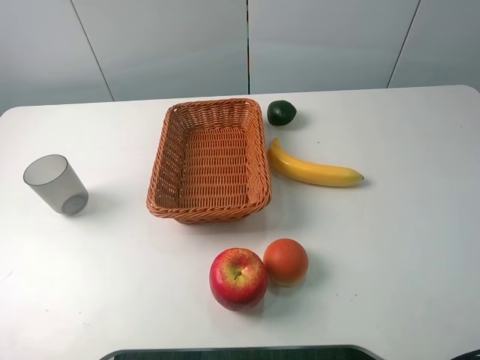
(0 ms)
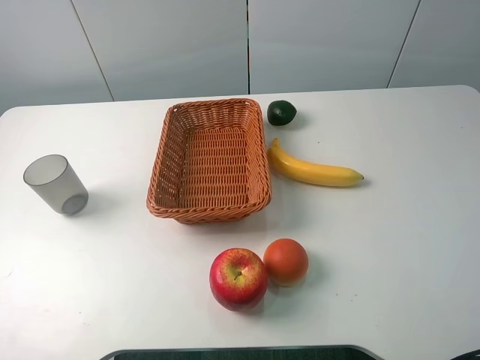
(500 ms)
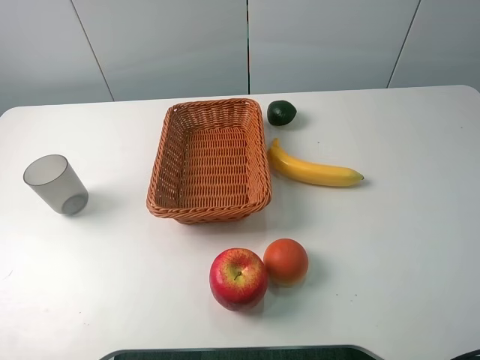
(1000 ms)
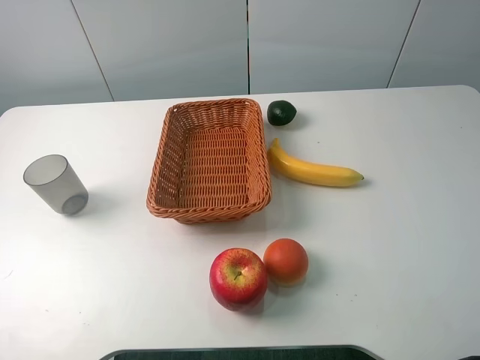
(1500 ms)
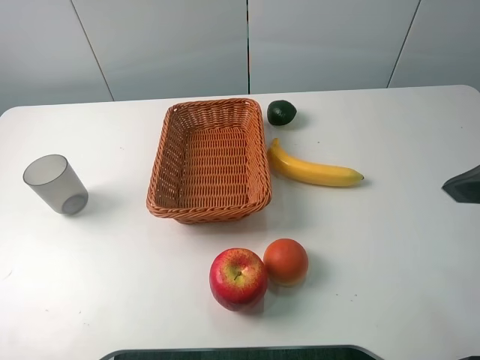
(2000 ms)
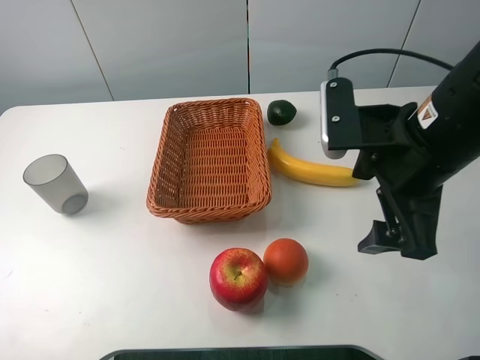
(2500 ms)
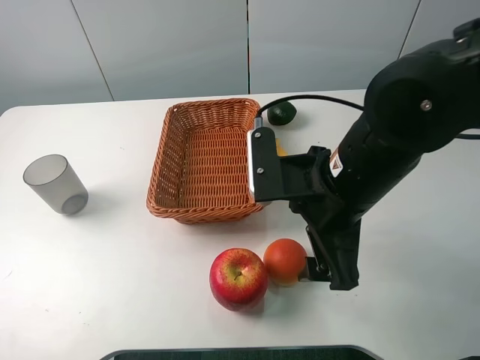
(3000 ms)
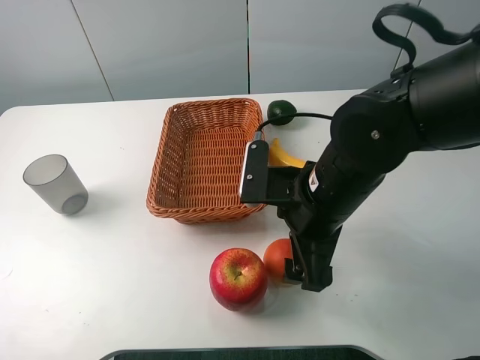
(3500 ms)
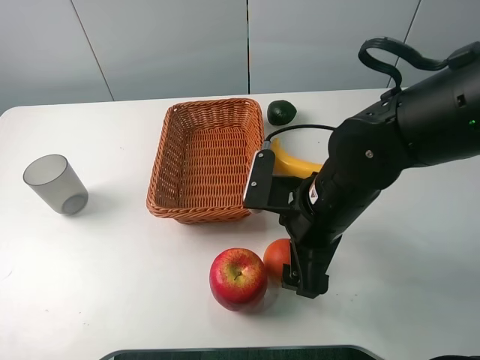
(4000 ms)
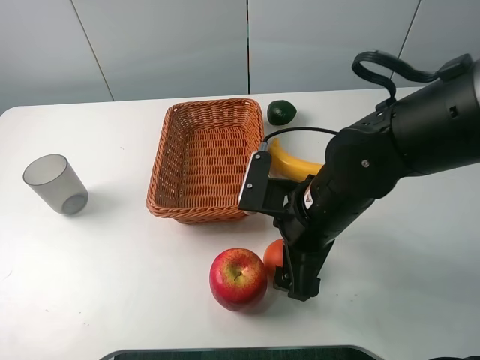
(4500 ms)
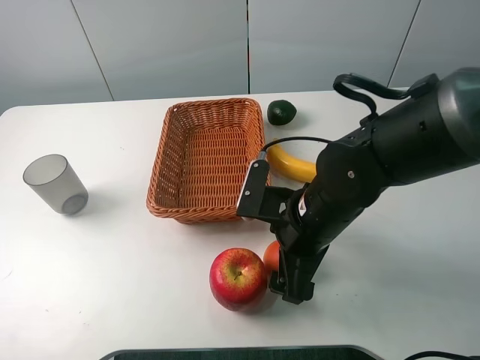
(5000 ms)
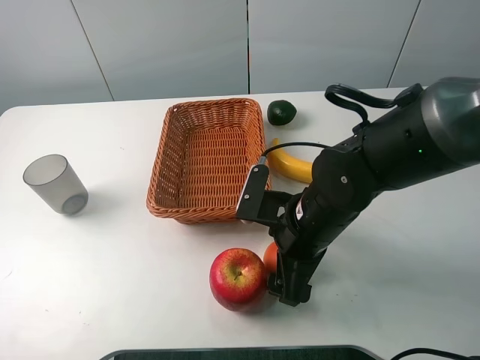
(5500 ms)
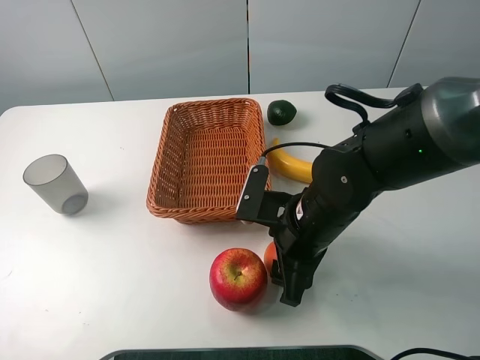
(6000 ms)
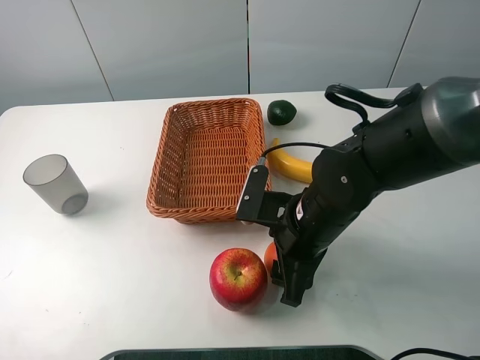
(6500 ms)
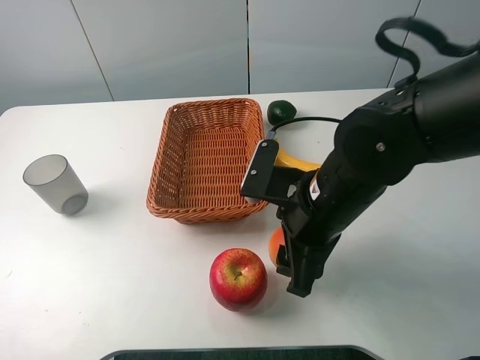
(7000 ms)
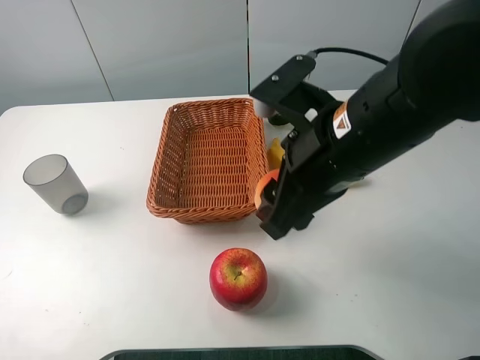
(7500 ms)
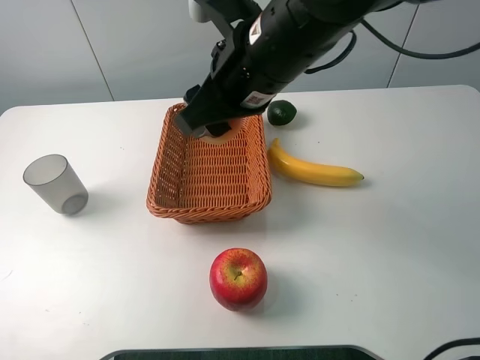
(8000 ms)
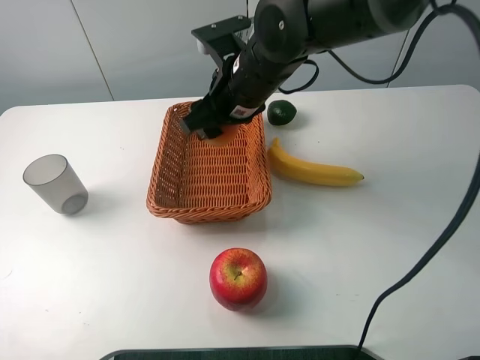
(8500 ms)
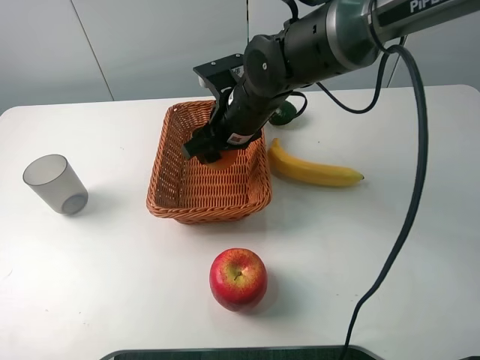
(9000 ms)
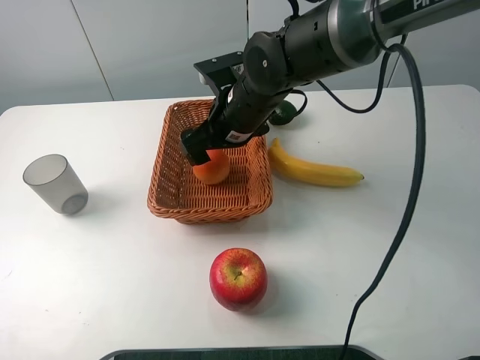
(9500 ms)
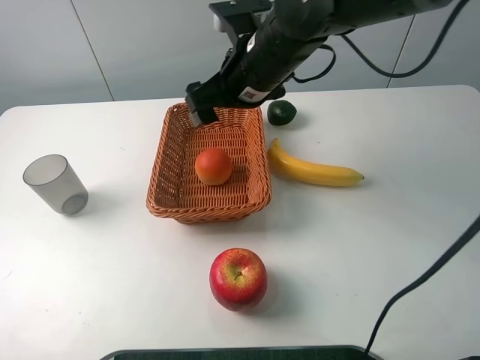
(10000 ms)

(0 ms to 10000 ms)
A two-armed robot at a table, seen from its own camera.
0 ms - 2000 ms: The right gripper travels forward and to the left by some 15 cm.
2000 ms - 4000 ms: The right gripper is displaced downward and to the left by approximately 20 cm.
4000 ms - 6000 ms: The right gripper closes up.
6000 ms - 8000 ms: The right gripper moves upward, forward and to the left, about 20 cm.
8000 ms - 10000 ms: The right gripper is displaced forward by approximately 5 cm, moves some 10 cm downward and comes back, and opens up.

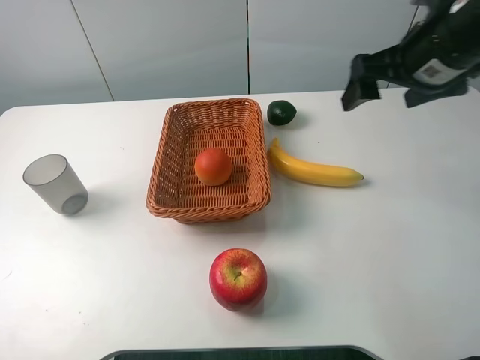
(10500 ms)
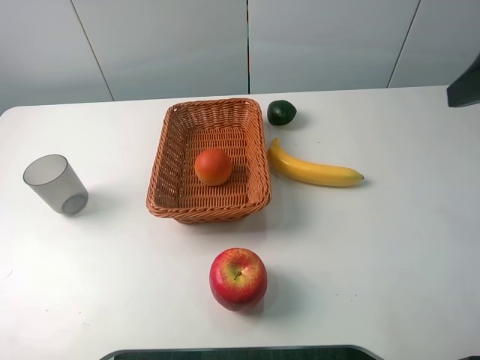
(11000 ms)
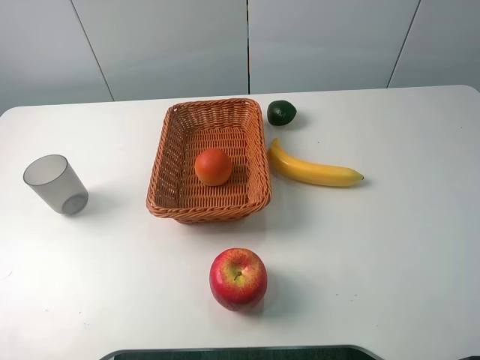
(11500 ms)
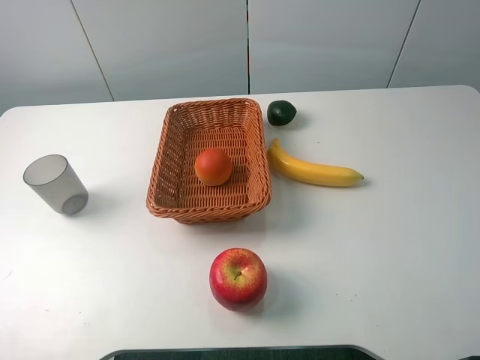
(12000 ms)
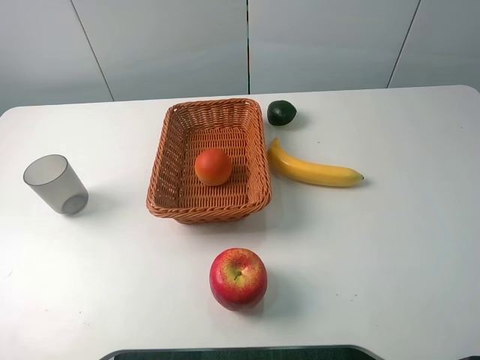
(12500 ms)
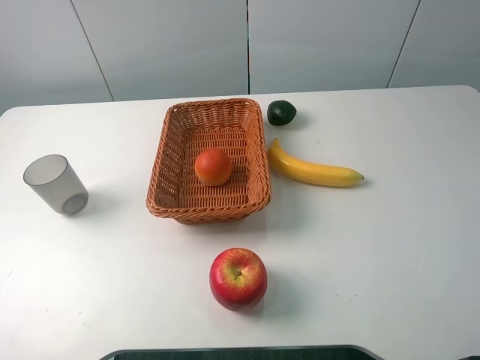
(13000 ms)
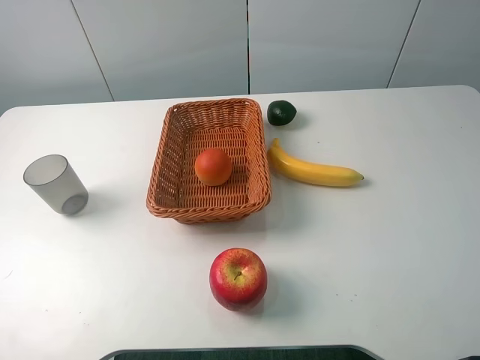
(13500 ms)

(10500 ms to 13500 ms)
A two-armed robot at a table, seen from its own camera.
10500 ms - 12000 ms: The right gripper heads backward, covering some 30 cm.
12000 ms - 13500 ms: Both grippers stay about where they are.
